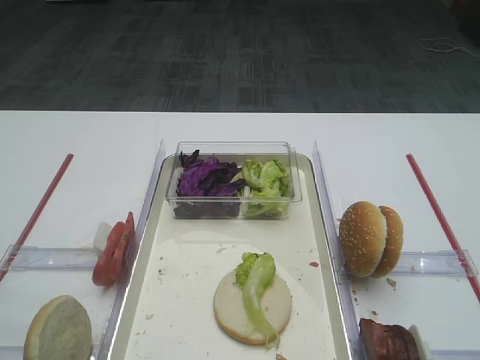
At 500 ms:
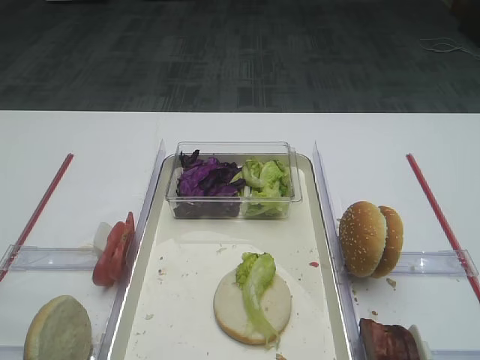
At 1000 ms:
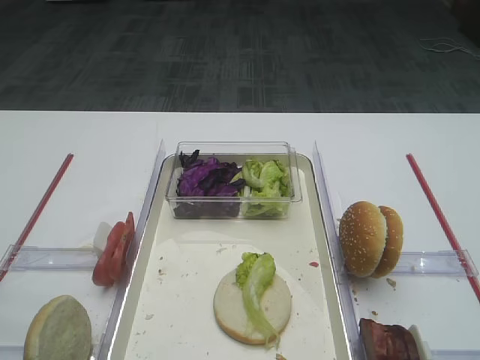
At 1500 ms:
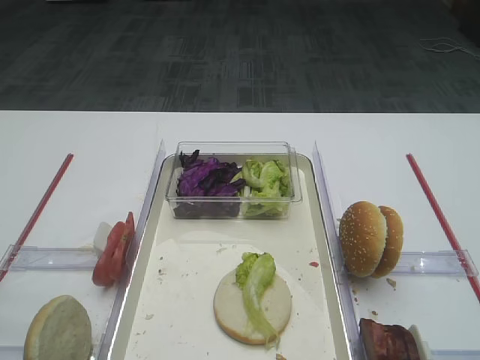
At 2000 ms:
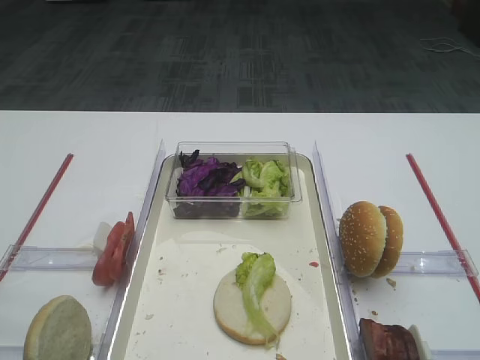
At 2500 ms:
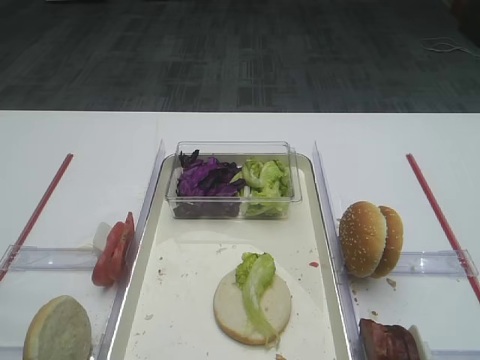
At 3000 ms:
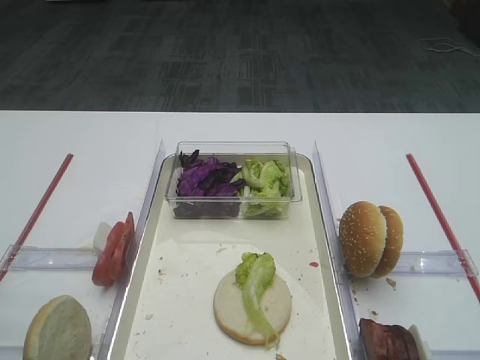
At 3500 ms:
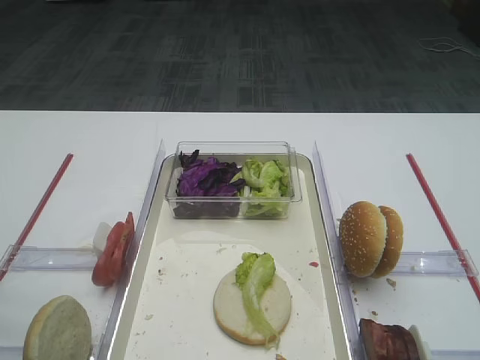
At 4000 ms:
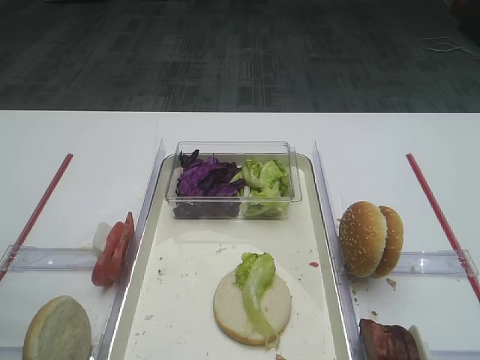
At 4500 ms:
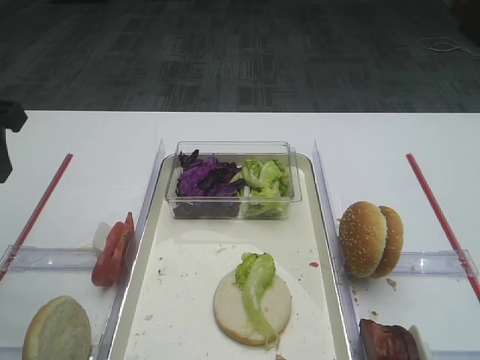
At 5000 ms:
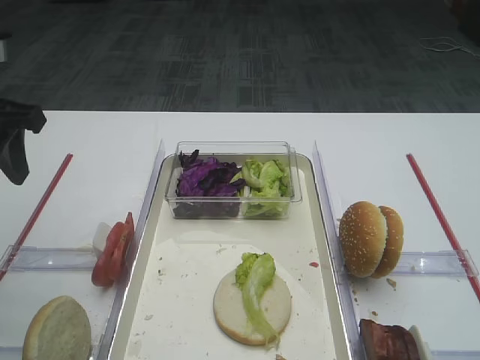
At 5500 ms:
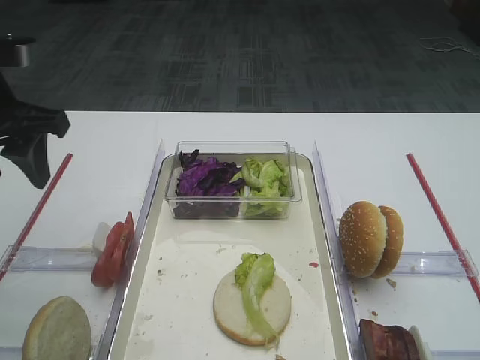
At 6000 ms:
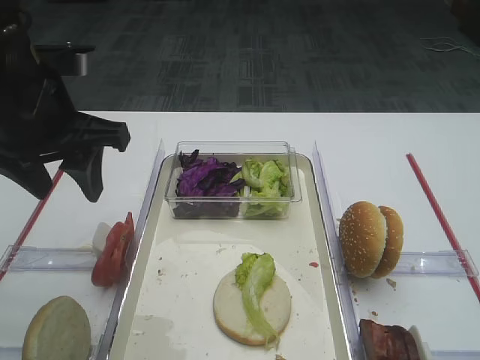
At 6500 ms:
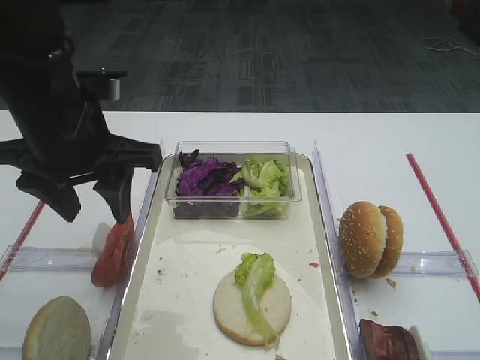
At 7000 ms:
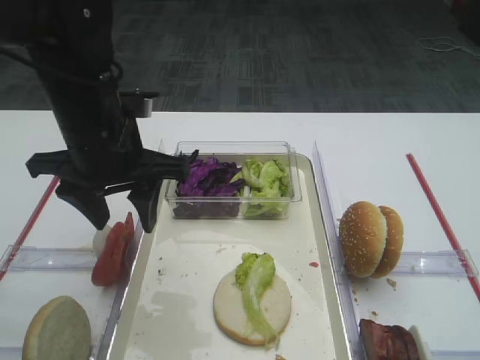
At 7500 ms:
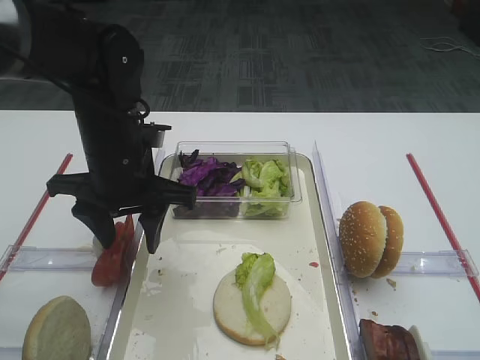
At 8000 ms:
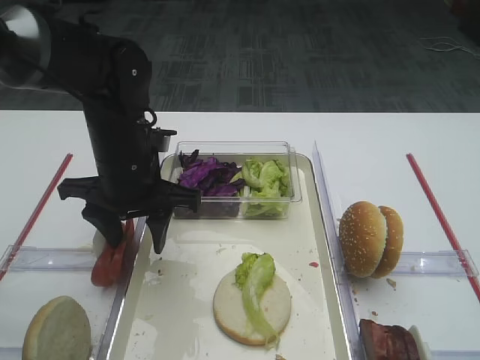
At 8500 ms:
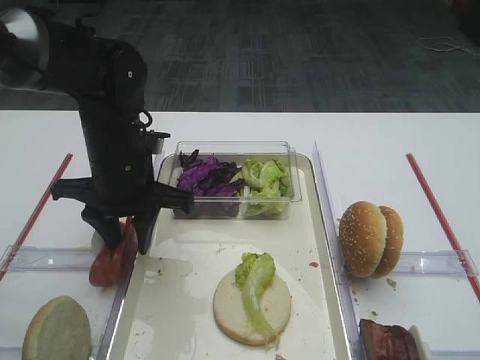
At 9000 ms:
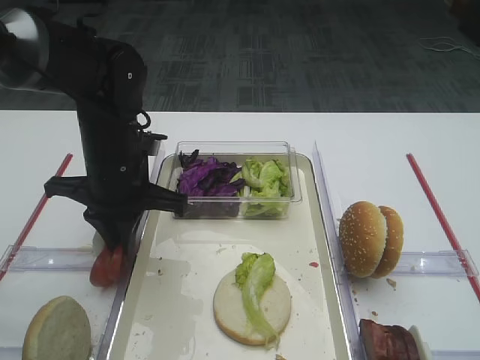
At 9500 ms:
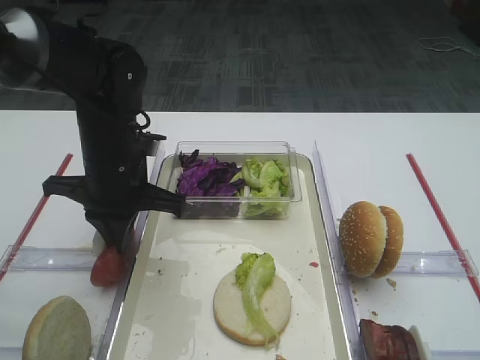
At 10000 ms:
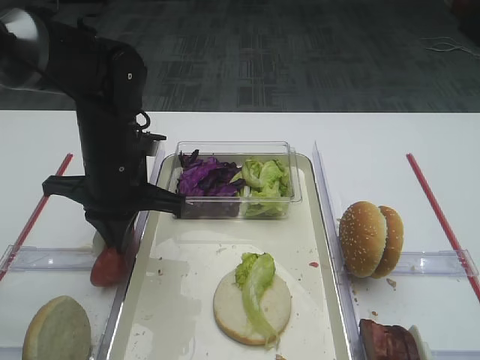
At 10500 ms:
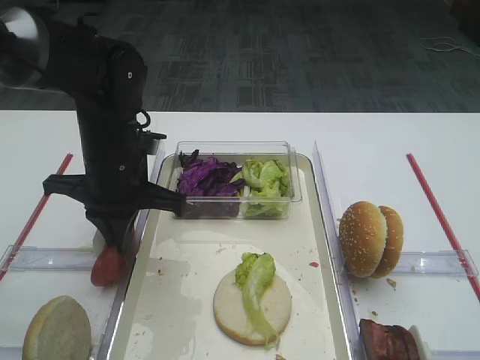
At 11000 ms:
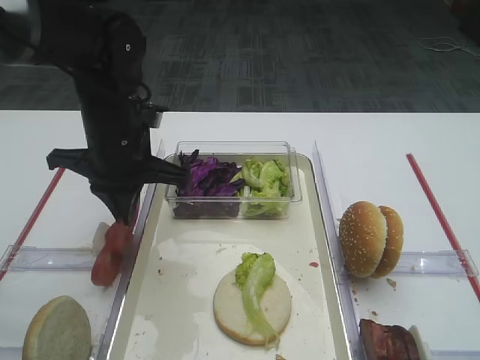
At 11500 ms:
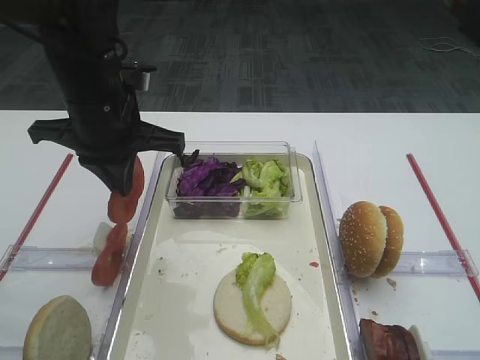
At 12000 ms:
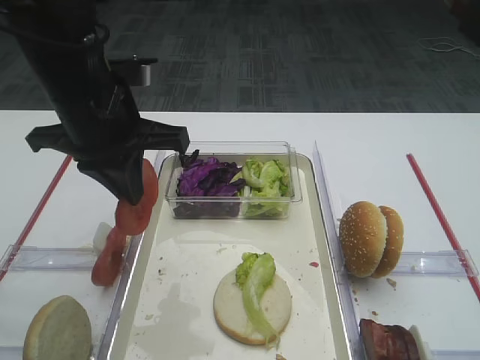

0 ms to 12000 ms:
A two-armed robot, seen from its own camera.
Step, 0 ms to 11000 ms: Pick up the tomato slice with the left gripper.
4000 ms to 6000 ms: The left gripper is displaced to the right and forward by some 10 cm.
6000 ms to 8000 ms: The left gripper heads downward and to the right, covering about 10 cm.
8000 ms to 10000 ms: The left gripper closes its fingers.
10000 ms to 12000 ms: The right gripper closes; the left gripper goes roughly 10 cm upward.

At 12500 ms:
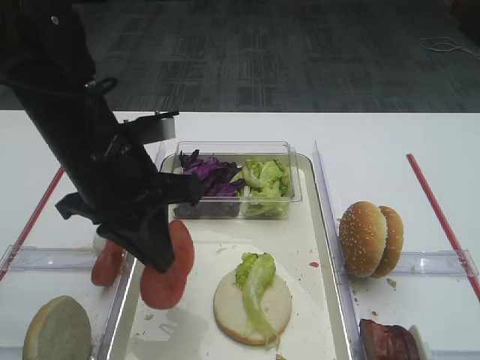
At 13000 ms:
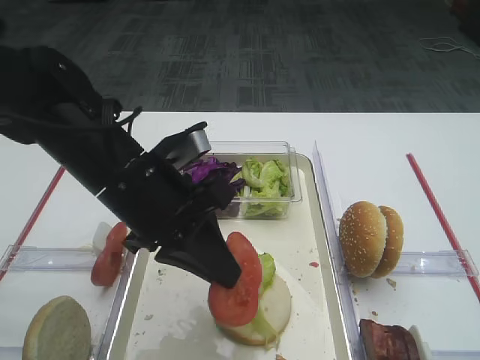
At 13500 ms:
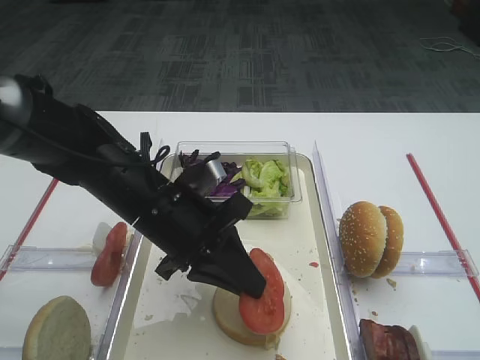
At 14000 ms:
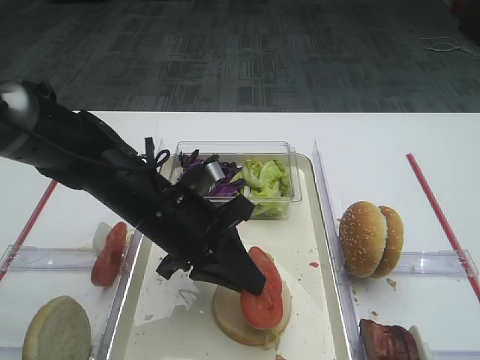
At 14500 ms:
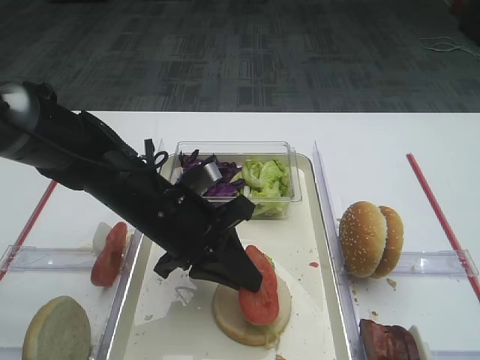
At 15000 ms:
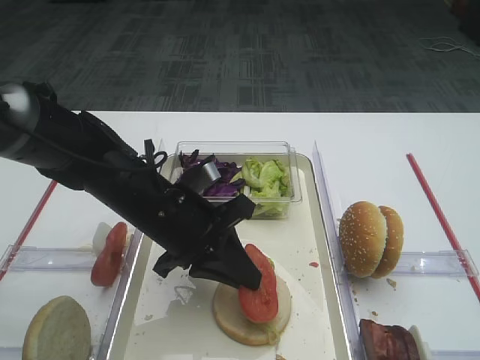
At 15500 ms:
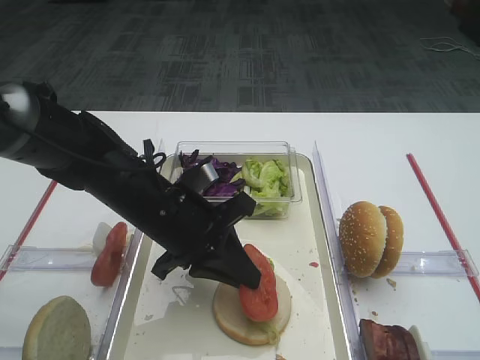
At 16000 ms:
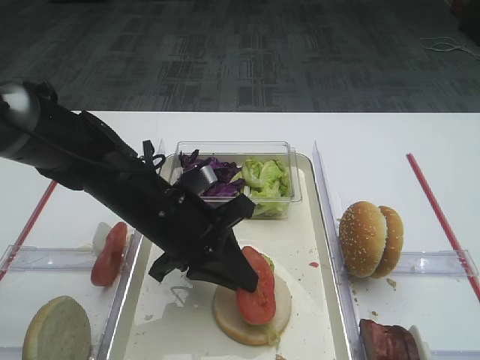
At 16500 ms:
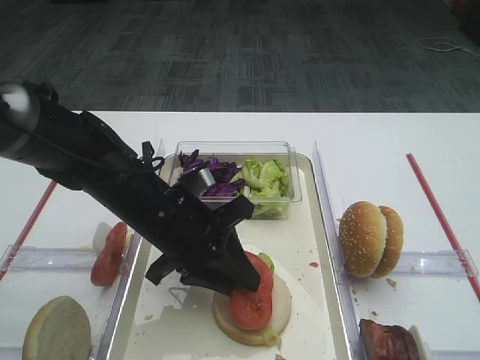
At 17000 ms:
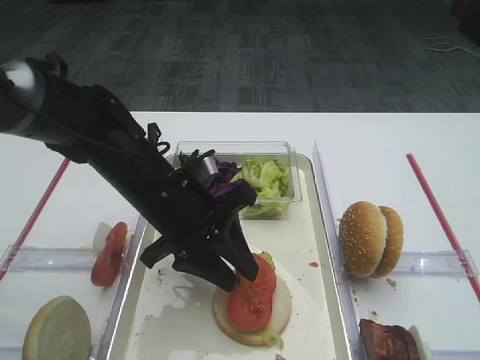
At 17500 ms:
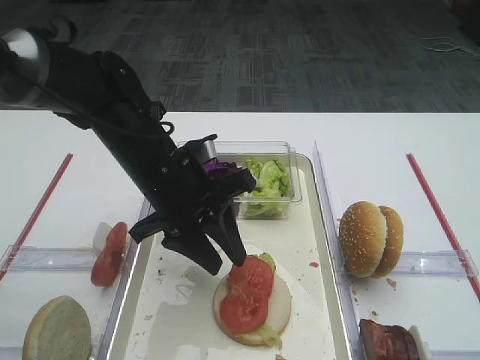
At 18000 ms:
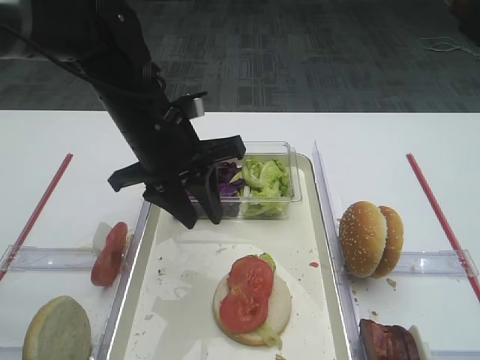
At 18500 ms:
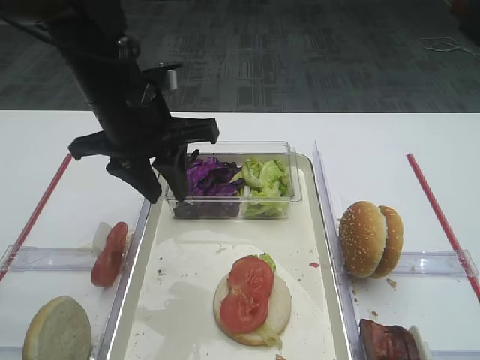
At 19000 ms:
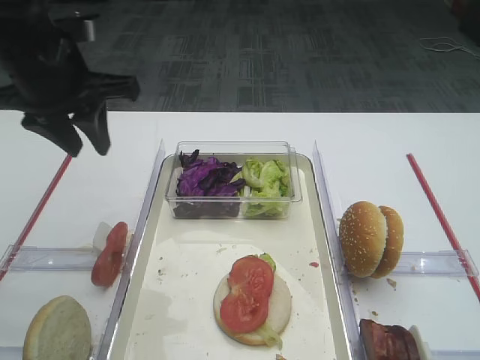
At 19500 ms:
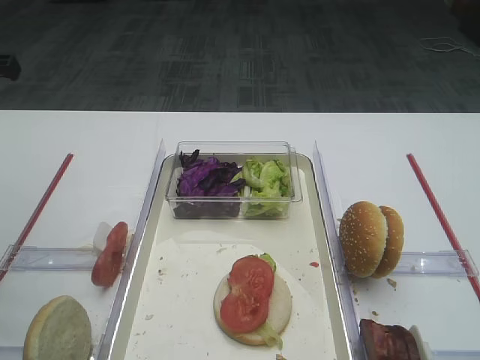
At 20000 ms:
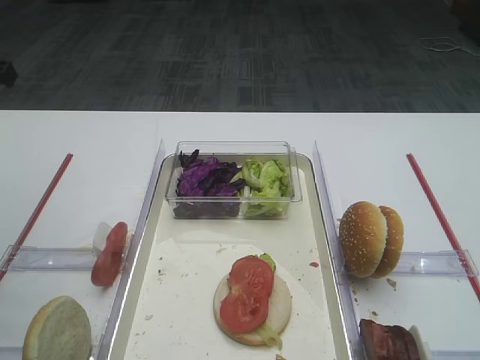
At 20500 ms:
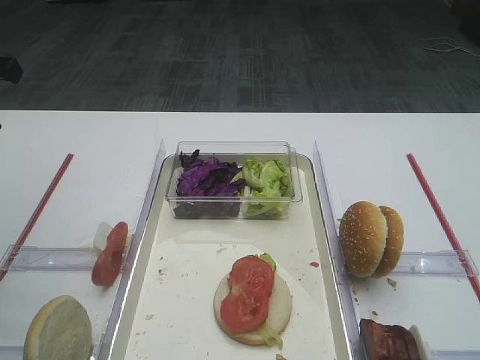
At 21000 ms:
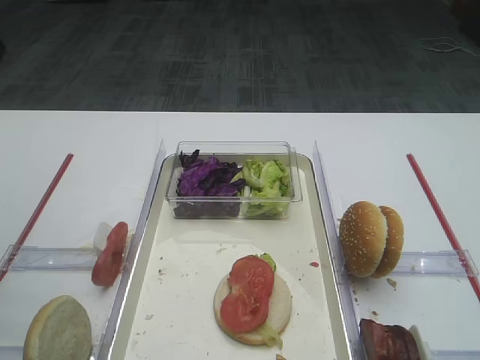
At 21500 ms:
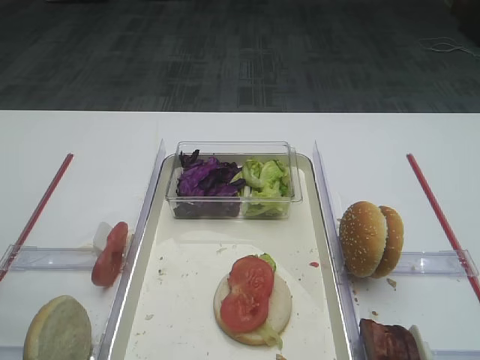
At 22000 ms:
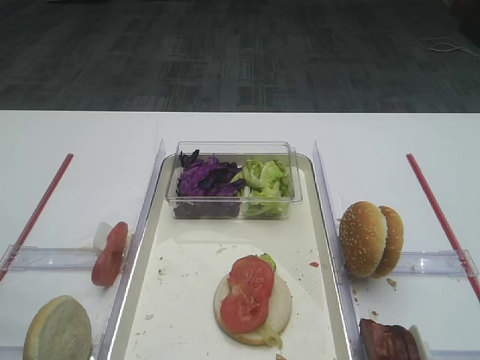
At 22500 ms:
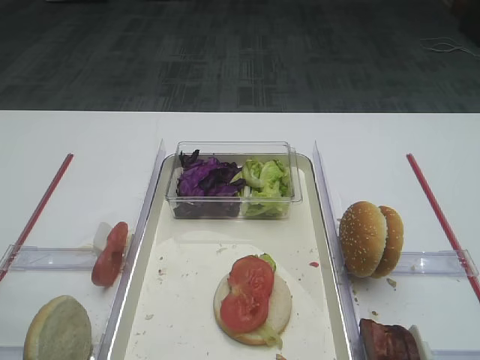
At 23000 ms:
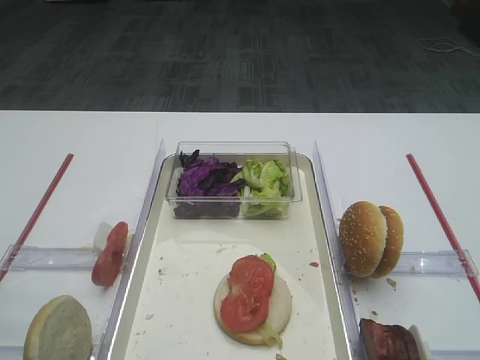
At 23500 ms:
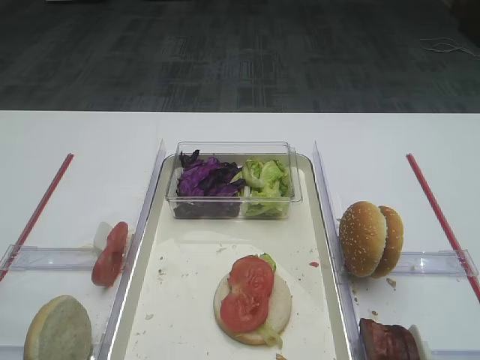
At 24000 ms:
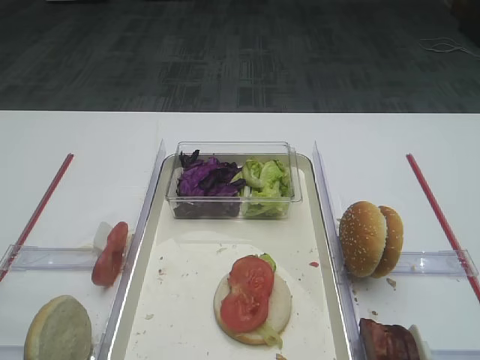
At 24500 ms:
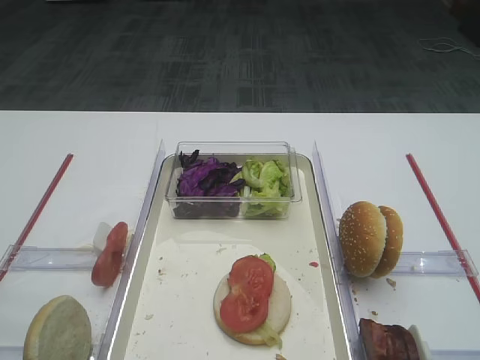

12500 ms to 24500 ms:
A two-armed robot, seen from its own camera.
Step, 12500 ms to 17500 ms: Place the tomato slice on the lettuce leaf with the left gripper.
12500 ms to 14500 ms: The left gripper shifts about 10 cm downward.
14500 ms to 16500 ms: The left gripper opens its fingers.
16500 ms to 18500 ms: The left gripper heads upward, covering approximately 10 cm.
18500 ms to 20500 ms: The left gripper heads to the left, covering about 20 cm.

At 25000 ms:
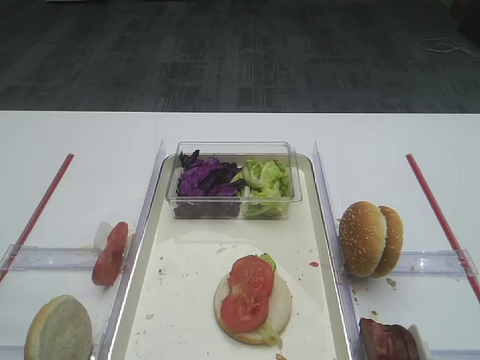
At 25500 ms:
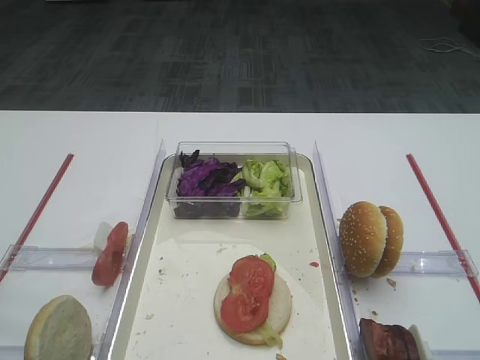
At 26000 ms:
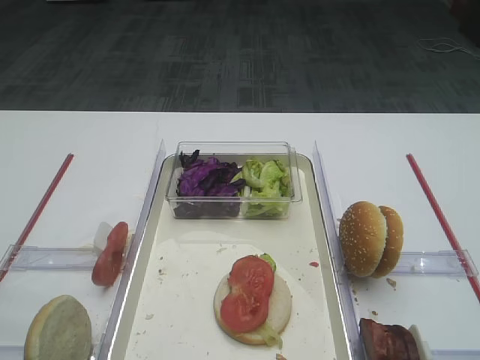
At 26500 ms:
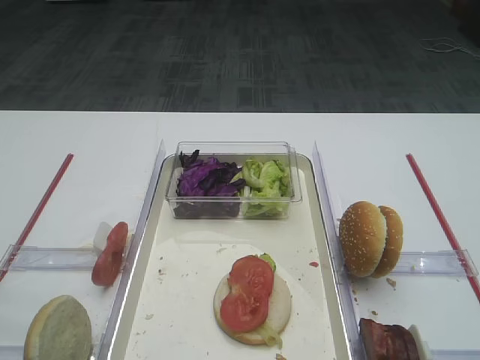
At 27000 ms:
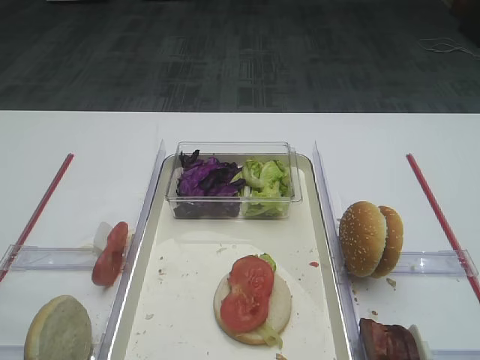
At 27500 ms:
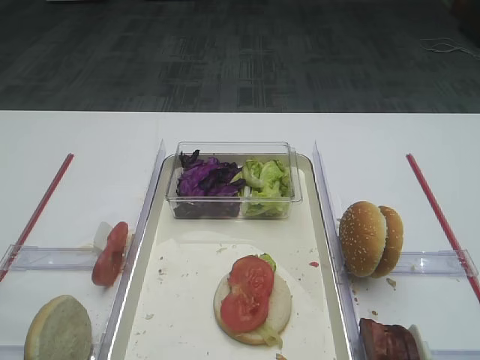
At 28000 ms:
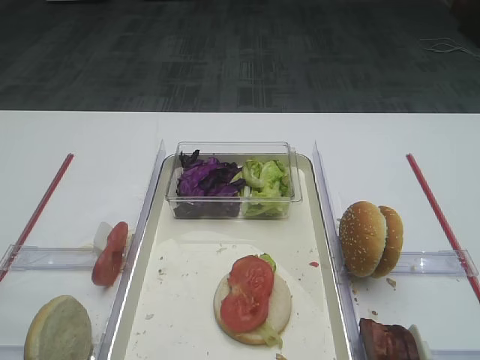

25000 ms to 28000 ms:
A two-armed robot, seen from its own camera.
25000 ms to 28000 ms: The two grippers keep their place.
